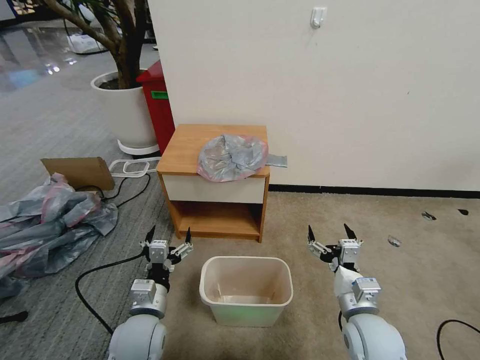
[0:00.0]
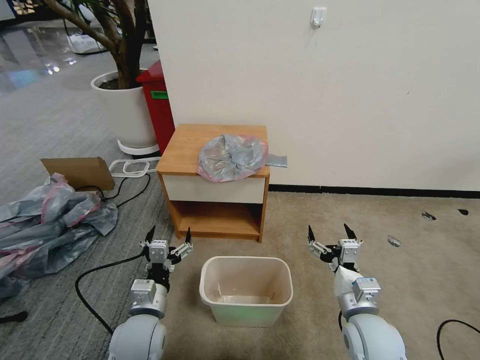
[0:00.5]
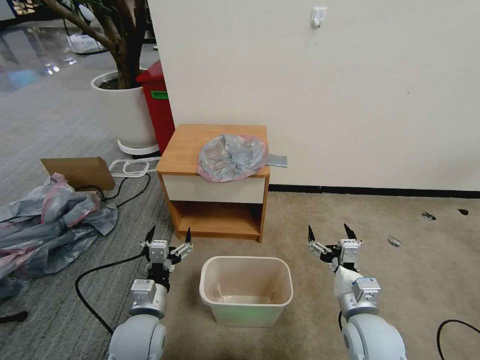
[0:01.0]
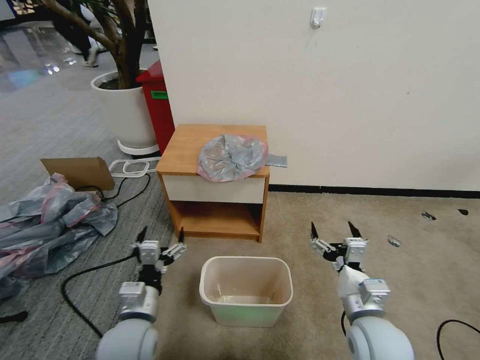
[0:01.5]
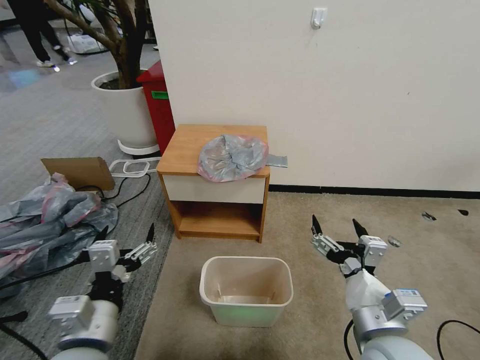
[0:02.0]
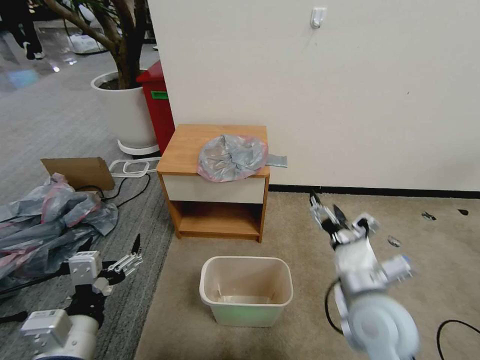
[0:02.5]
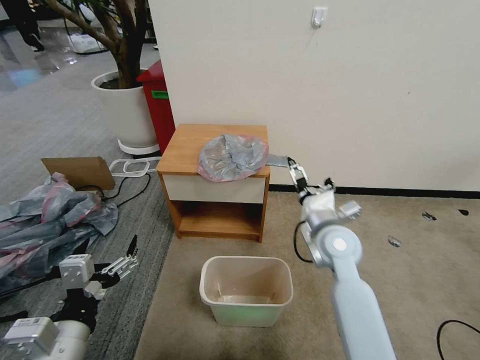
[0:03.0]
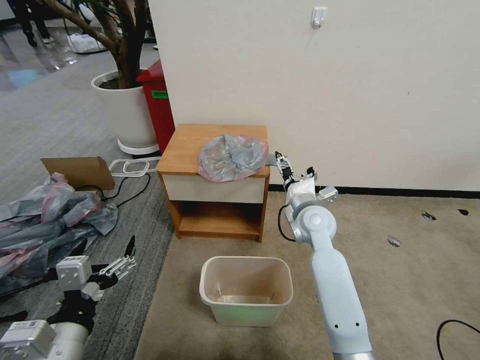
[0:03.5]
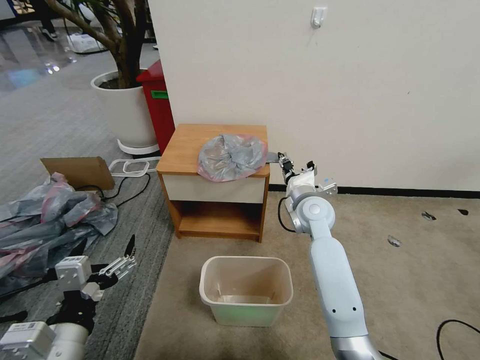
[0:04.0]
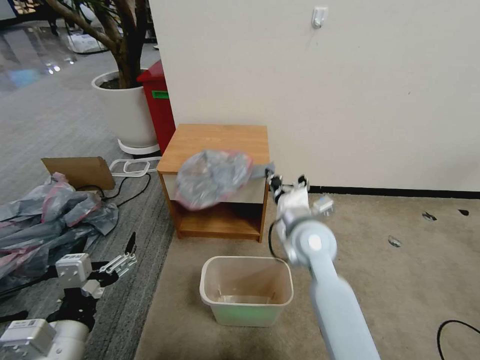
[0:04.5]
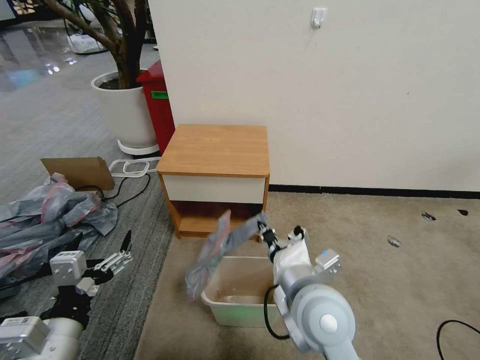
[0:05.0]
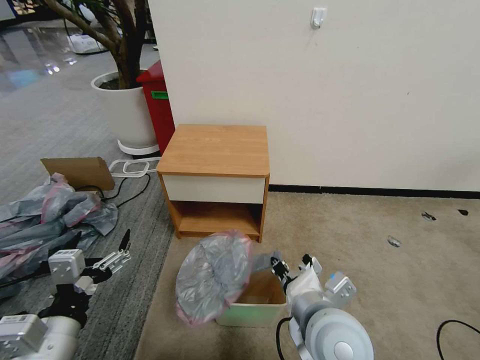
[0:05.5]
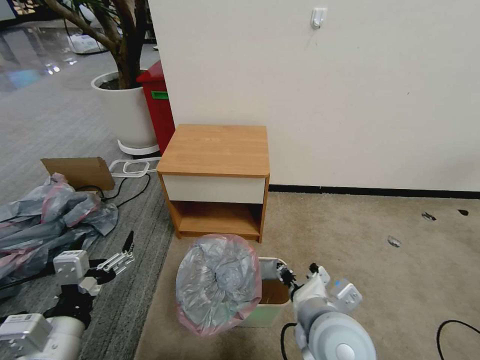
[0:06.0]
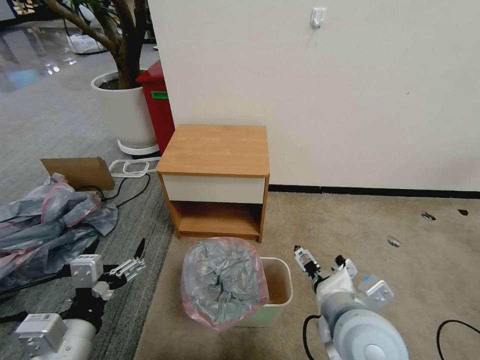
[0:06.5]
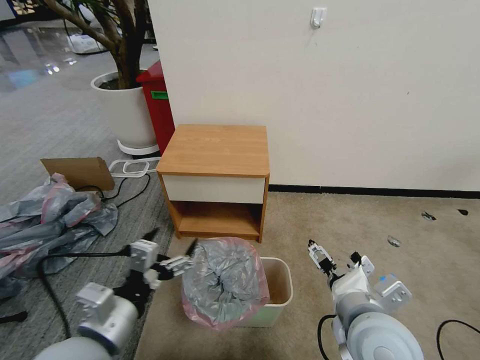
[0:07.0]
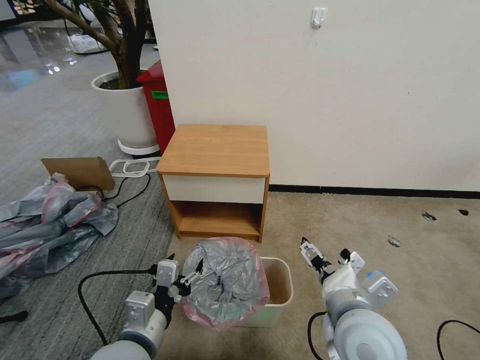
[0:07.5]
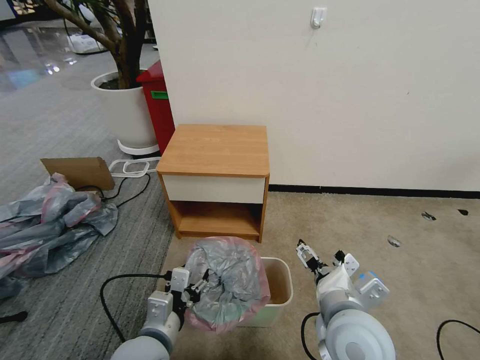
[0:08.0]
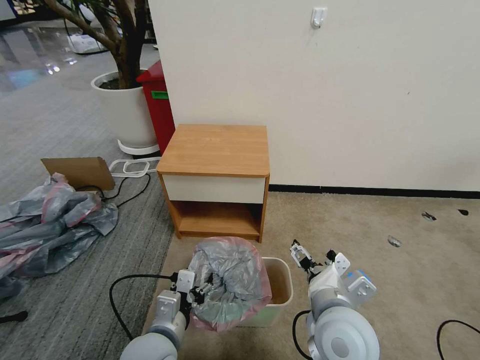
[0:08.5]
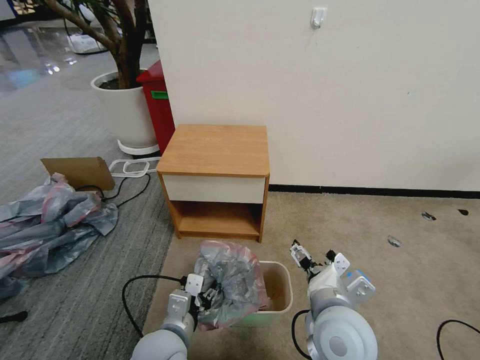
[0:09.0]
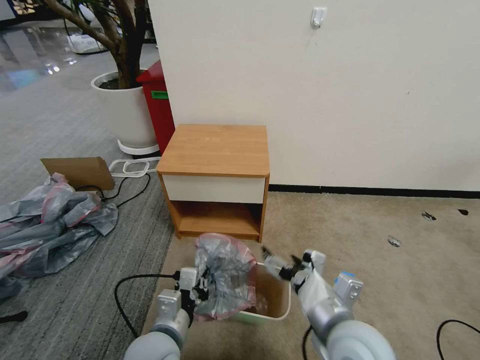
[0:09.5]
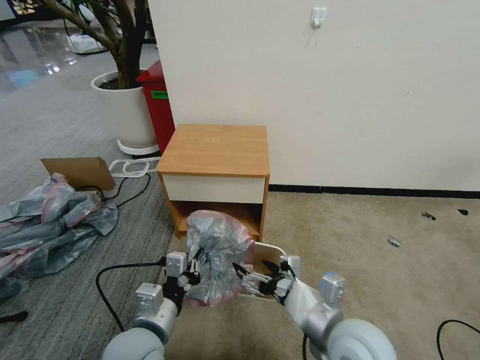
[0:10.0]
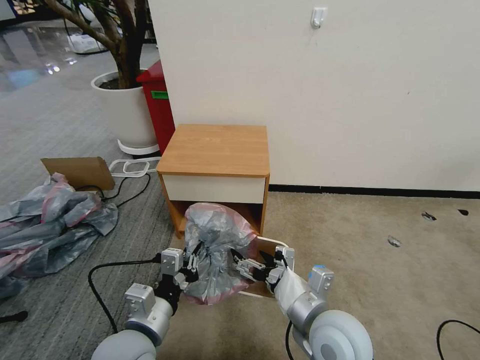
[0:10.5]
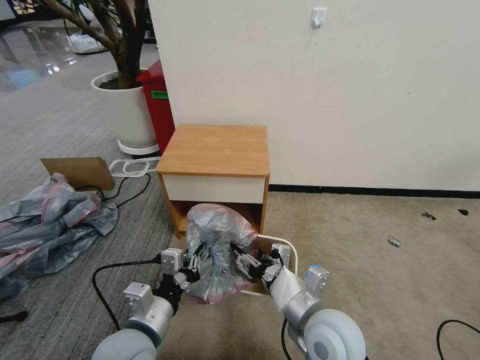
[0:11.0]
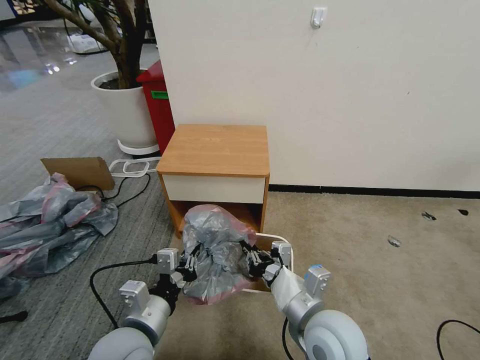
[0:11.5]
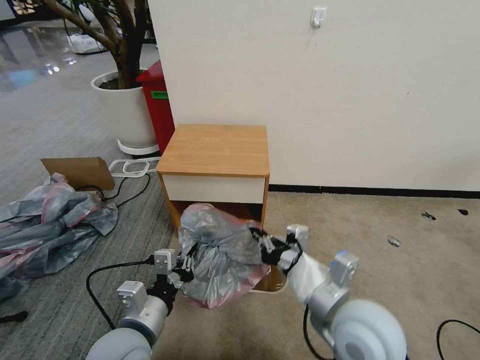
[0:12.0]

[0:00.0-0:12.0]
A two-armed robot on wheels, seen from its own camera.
Task of the whole recording: Pick up the garbage bag from the table and place it over the trash can.
2.0 to 4.0 s: The right gripper shifts about 30 cm forward, and closes up.
4.0 to 6.0 s: The right gripper shifts approximately 25 cm backward.
6.0 to 8.0 s: The left gripper is displaced to the right, downward and forward by some 15 cm. The right gripper opens its fingers.
8.0 to 10.0 s: The left gripper closes its fingers.
10.0 to 12.0 s: The right gripper closes up.

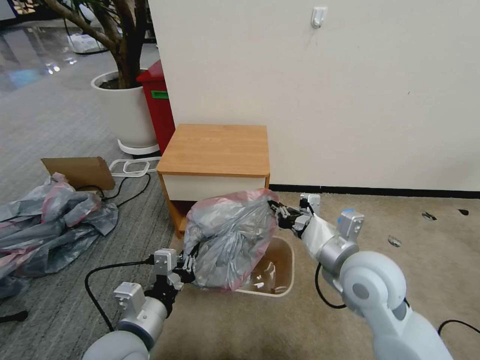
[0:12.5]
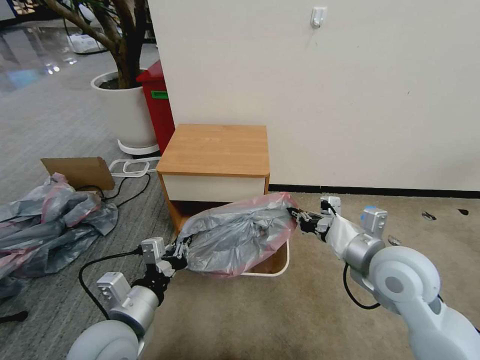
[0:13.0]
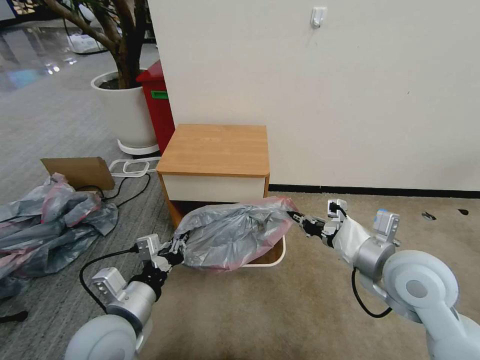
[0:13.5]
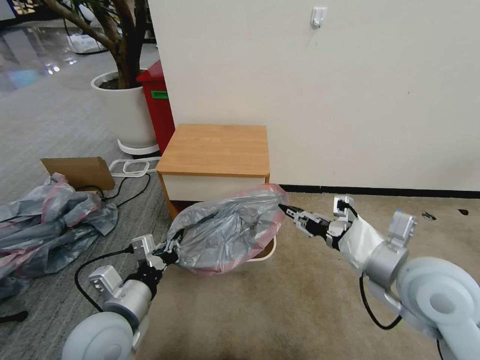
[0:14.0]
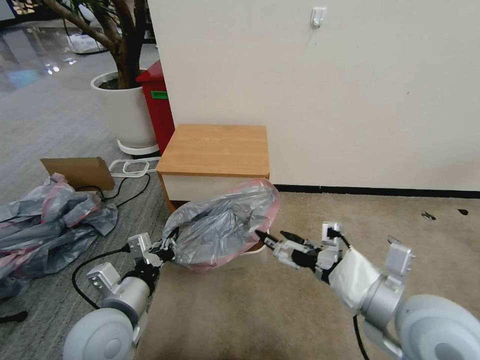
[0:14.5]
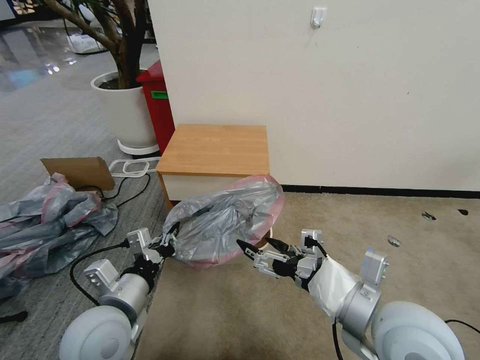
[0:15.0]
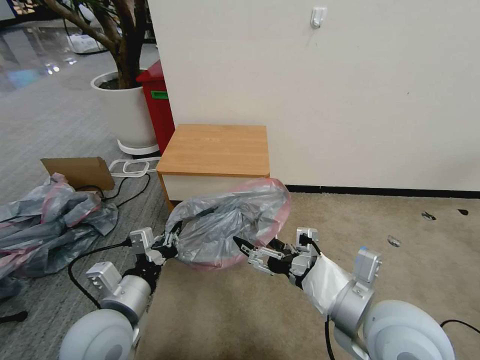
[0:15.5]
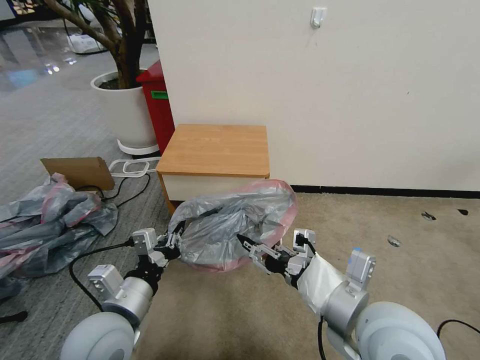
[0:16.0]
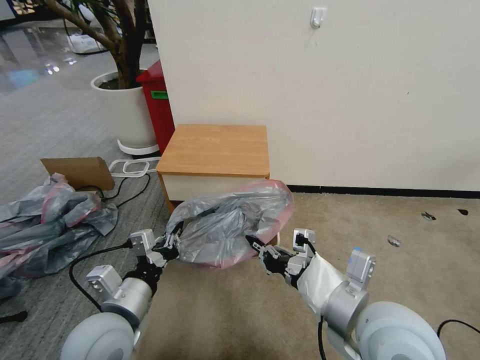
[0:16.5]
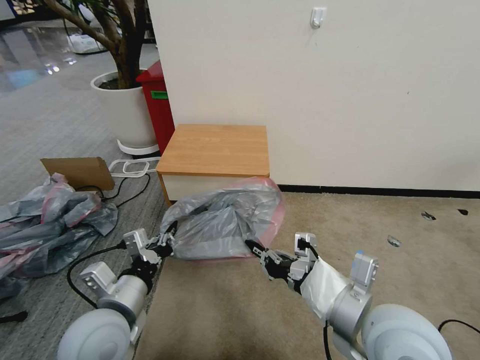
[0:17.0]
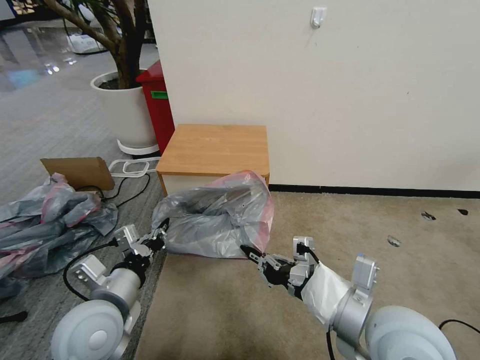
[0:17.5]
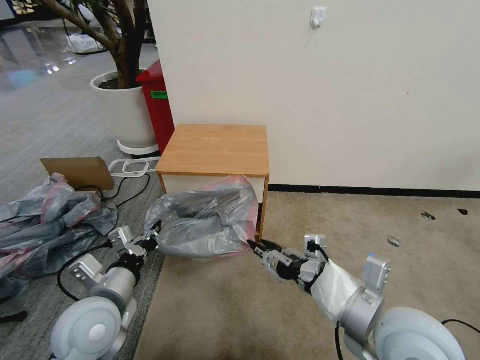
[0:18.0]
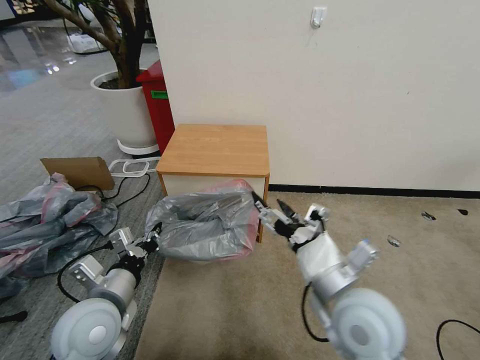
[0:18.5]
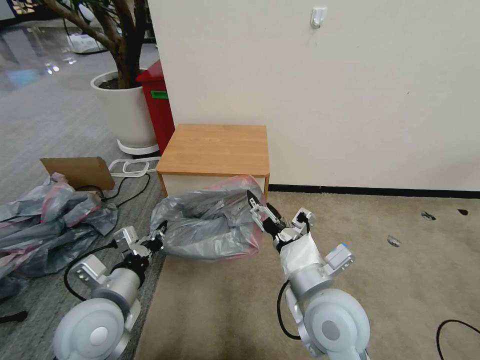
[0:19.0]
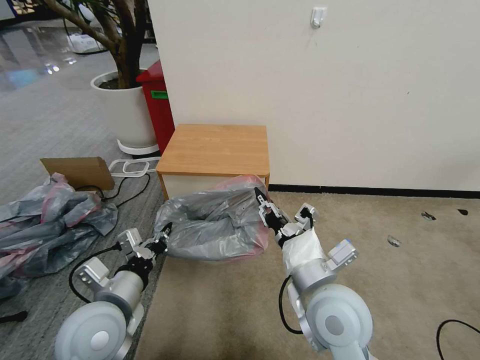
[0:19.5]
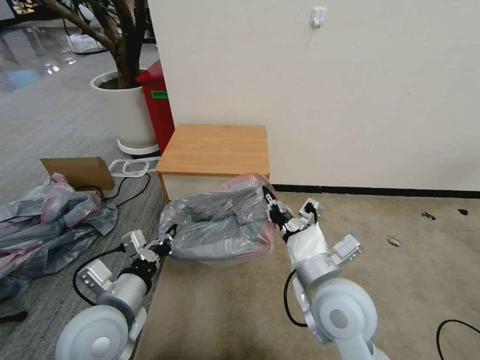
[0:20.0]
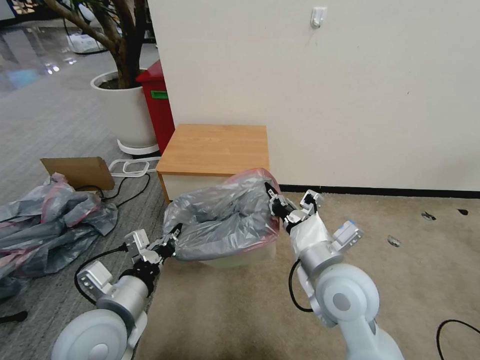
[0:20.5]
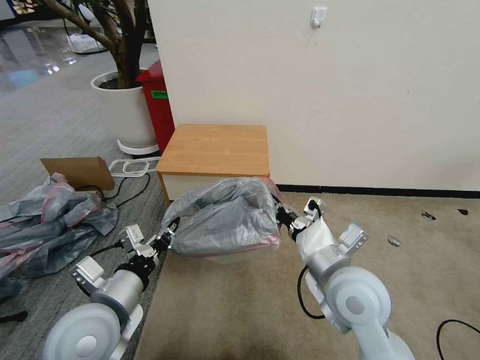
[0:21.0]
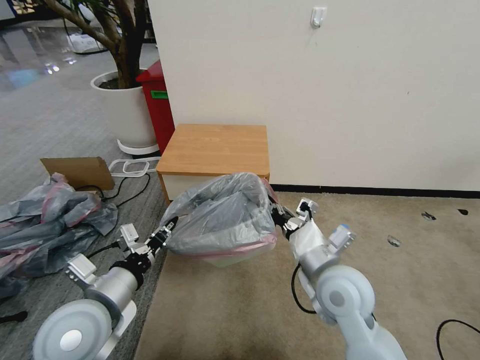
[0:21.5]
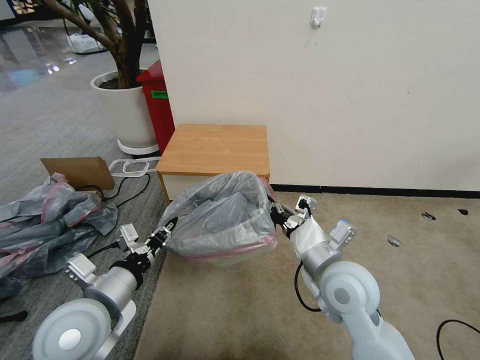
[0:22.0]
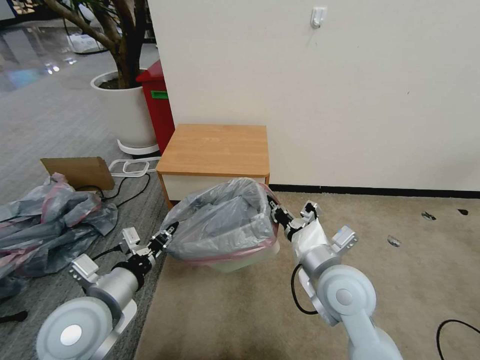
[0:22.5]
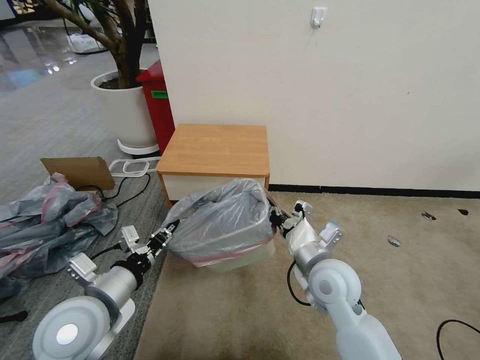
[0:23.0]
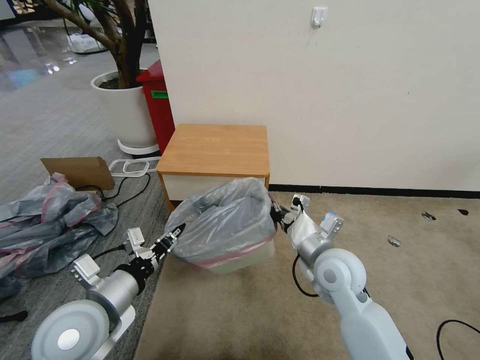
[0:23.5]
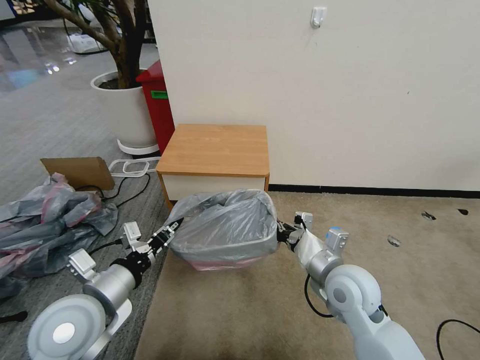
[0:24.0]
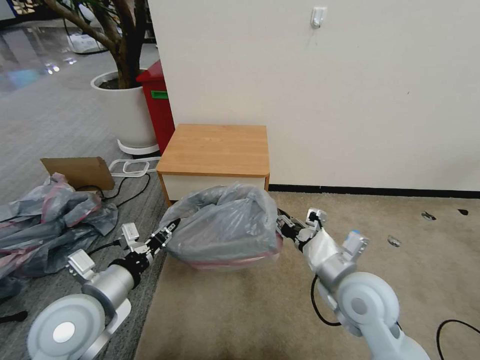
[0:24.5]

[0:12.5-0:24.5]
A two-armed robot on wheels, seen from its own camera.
Task of the whole recording: Pick up the garbage bag from the table and place it over the trash can.
12.5 to 14.5 s: The right gripper is displaced backward by roughly 10 cm, and opens its fingers.
14.5 to 16.5 s: The right gripper is displaced to the left by roughly 5 cm, and closes up.
16.5 to 18.5 s: The right gripper opens up.
18.5 to 20.5 s: The right gripper changes place by approximately 5 cm, and closes its fingers.
20.5 to 22.5 s: The grippers stay close to where they were, moving slightly.
22.5 to 24.5 s: The right gripper opens.

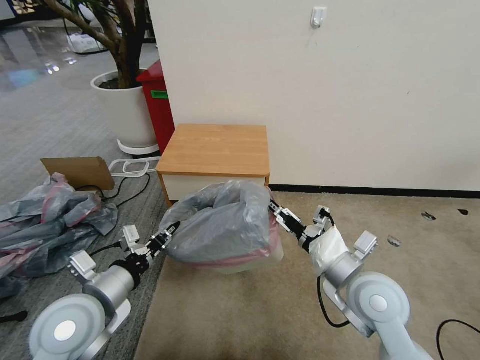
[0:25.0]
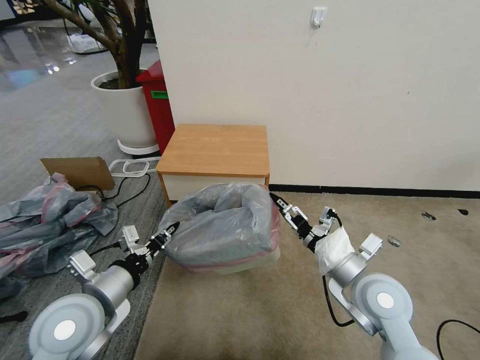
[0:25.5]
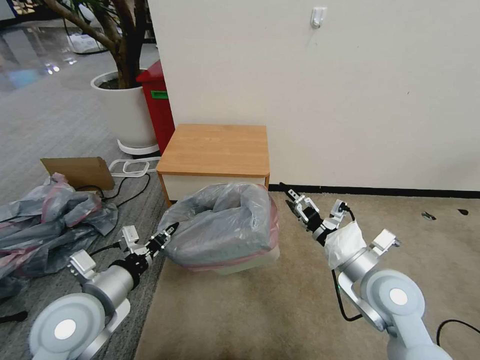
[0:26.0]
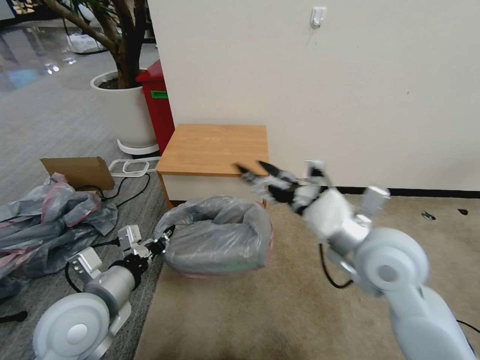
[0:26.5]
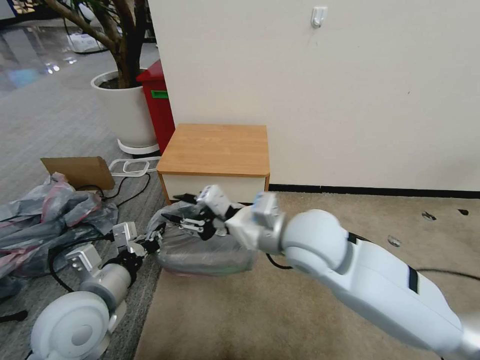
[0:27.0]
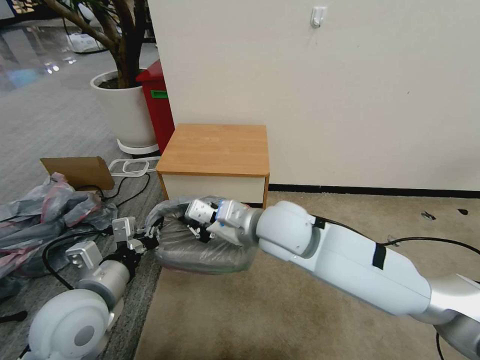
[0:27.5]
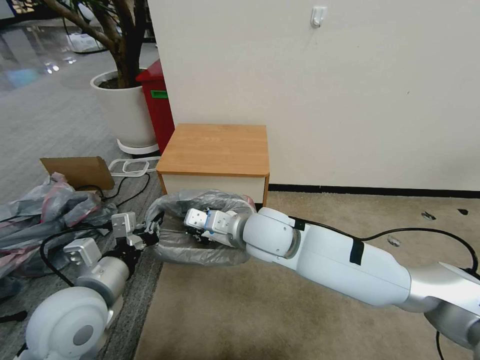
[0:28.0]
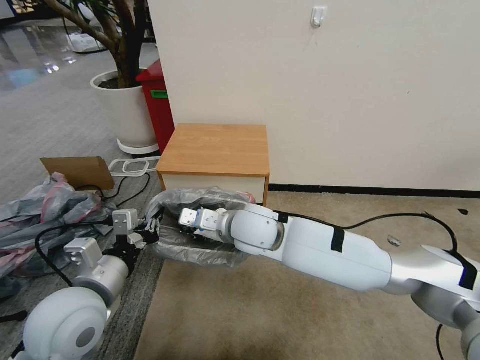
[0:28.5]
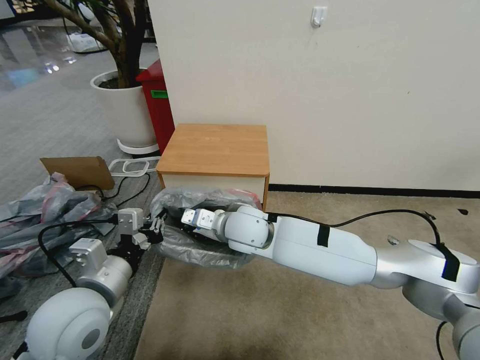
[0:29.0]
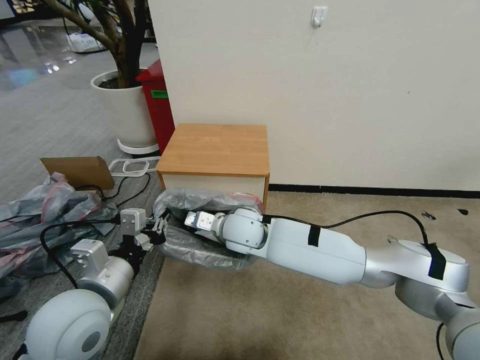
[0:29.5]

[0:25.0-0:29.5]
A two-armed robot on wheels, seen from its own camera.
Task of the whole recording: Pick up the garbage bag from the table and place it over the trash can.
25.0 to 27.0 s: The right gripper shifts some 20 cm to the left, upward and forward, and closes up.
27.0 to 29.5 s: The right gripper goes some 20 cm downward, to the left and forward, and closes its fingers.
